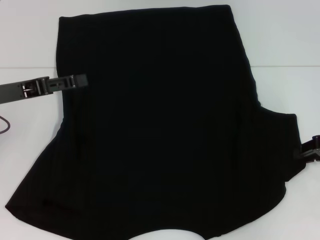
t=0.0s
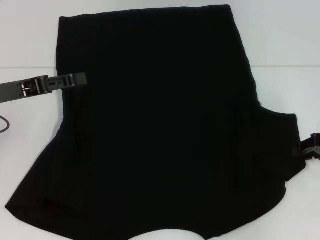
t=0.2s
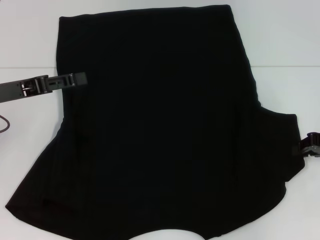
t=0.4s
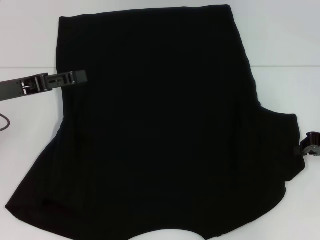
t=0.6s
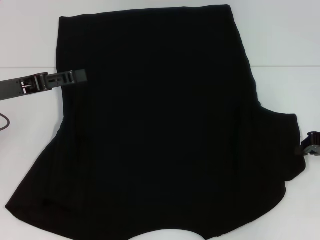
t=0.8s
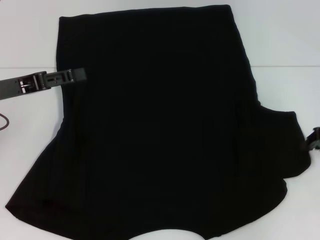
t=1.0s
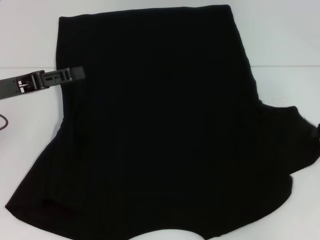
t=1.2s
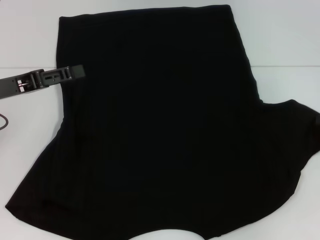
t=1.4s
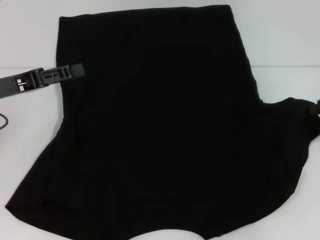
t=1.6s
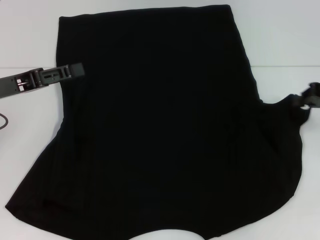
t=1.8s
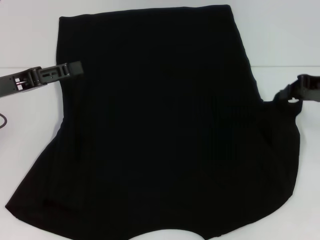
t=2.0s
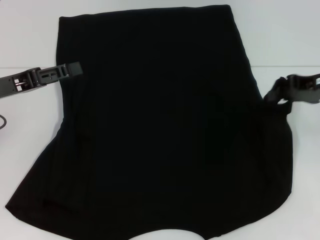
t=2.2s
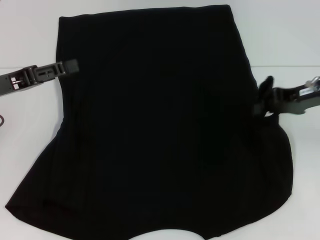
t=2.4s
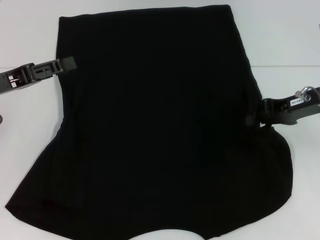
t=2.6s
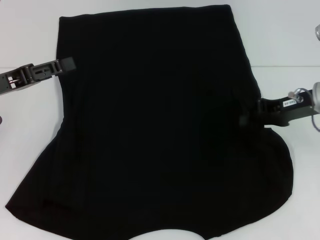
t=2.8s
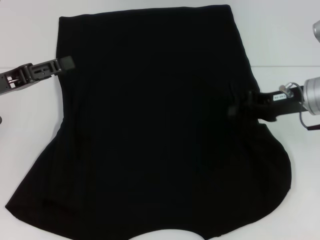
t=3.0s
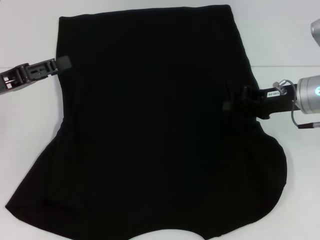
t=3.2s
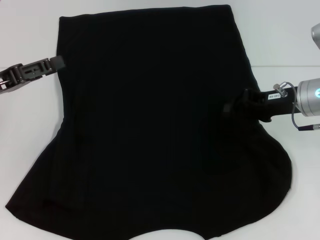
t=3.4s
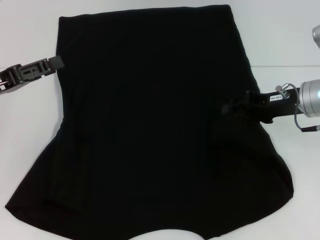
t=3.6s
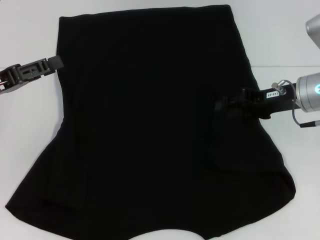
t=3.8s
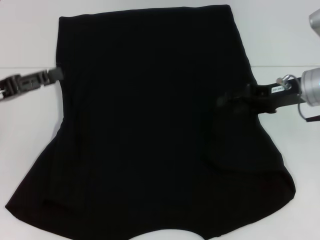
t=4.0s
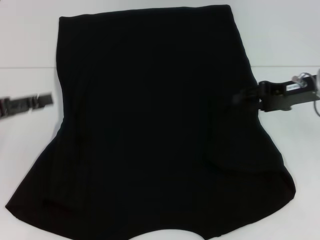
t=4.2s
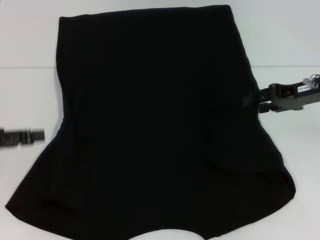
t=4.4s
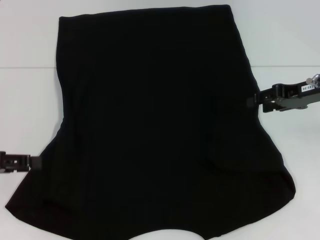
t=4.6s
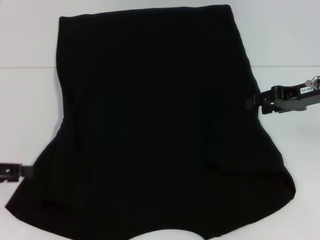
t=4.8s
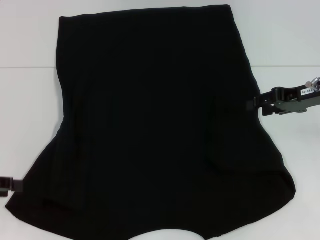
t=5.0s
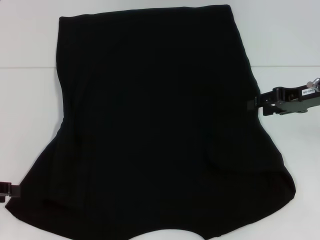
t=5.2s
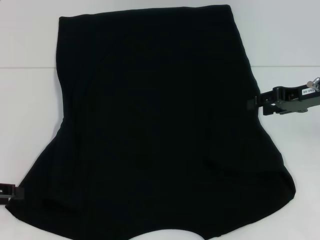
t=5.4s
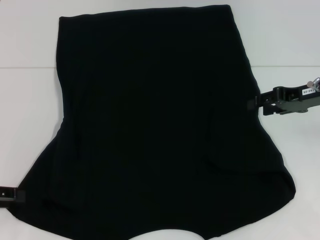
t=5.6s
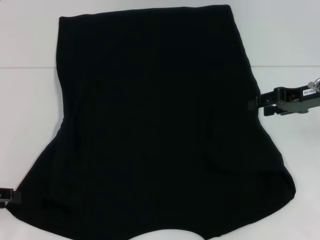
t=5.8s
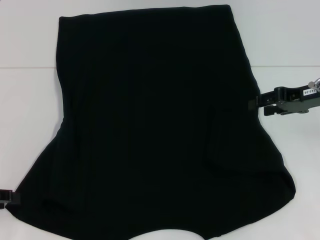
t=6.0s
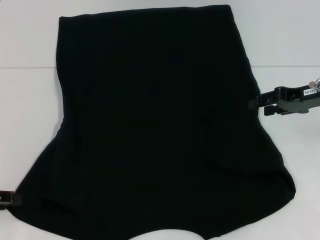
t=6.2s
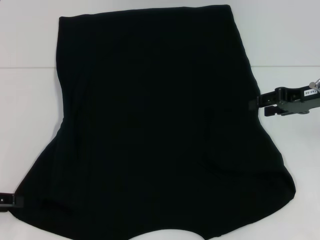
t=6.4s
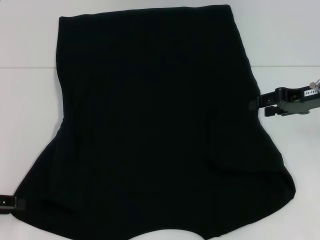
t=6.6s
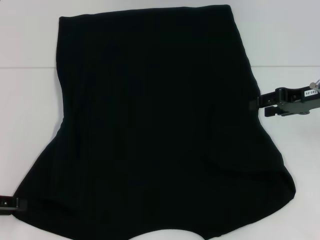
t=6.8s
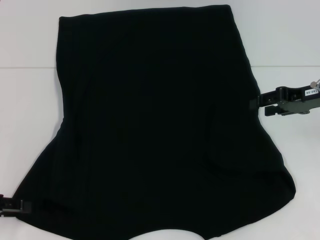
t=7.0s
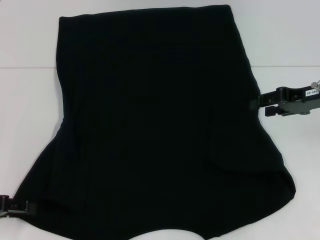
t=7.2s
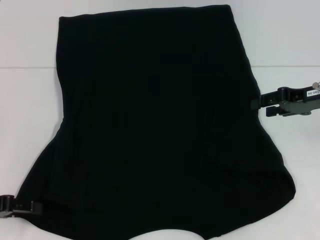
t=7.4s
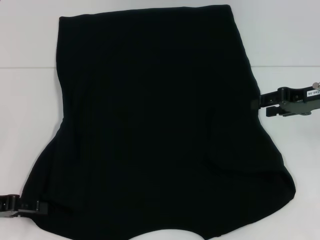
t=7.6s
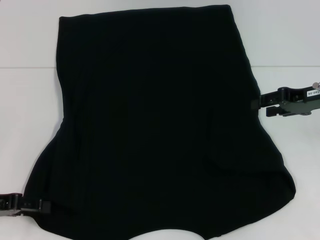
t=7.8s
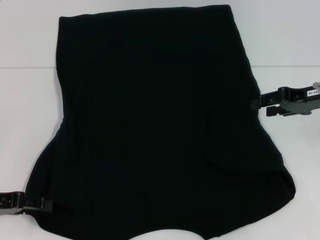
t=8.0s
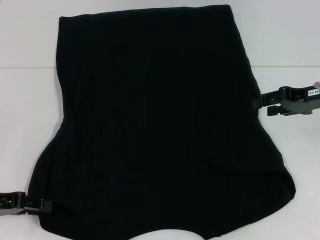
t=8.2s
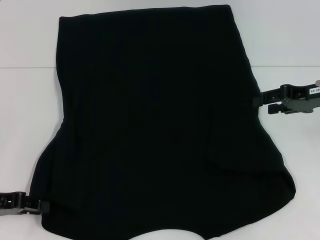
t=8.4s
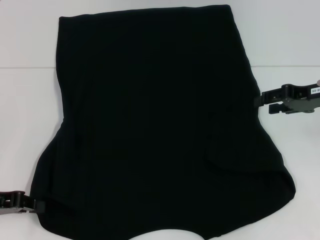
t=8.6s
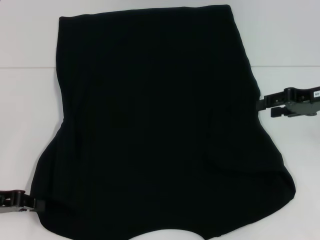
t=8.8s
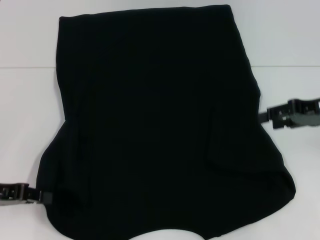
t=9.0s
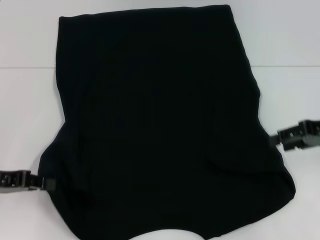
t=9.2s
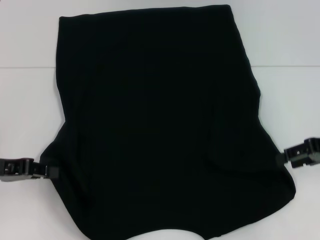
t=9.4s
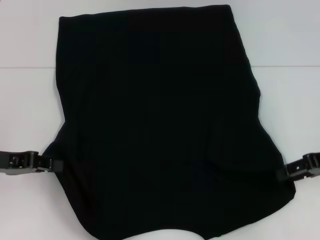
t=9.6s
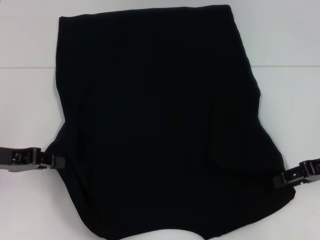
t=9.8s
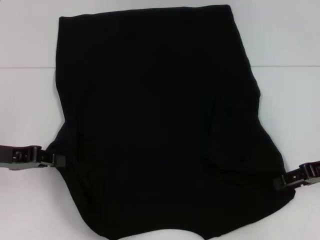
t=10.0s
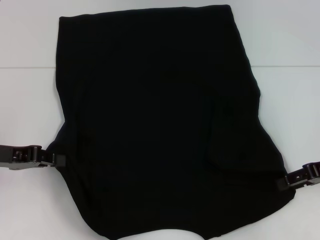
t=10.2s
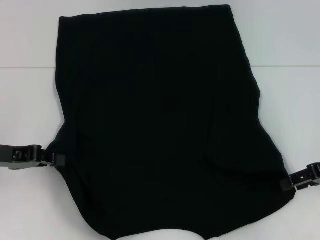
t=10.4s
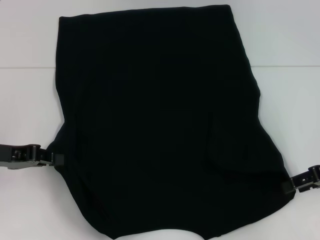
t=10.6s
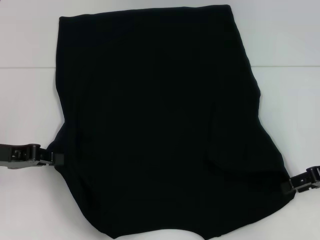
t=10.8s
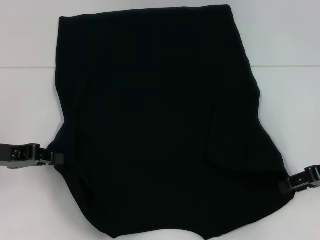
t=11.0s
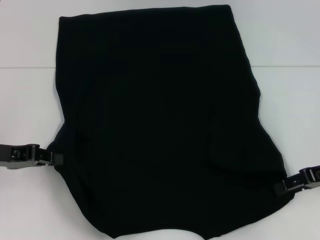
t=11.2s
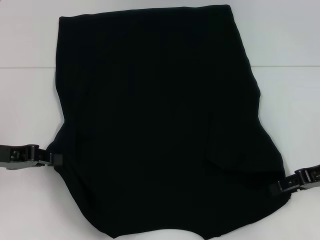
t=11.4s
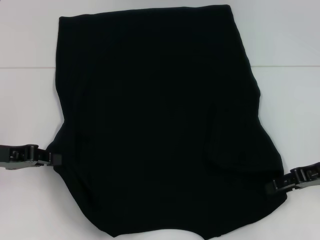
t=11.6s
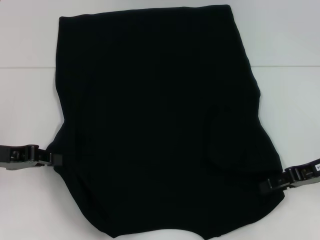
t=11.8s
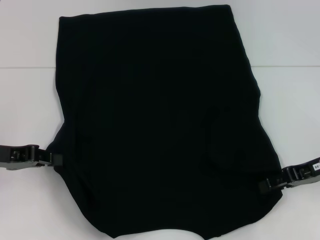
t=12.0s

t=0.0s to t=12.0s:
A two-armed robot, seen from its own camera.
Step, t=0.0s to t=4.0s: Fold the bottom right sleeve with your right hand.
Step, t=4.2s to t=8.8s: Grab the bottom left corner with your left hand.
t=0.0s to t=1.6s: The right gripper shifts by roughly 5 cm.
t=1.6s to t=3.0s: The right gripper goes some 10 cm to the left.
t=3.0s to t=4.4s: The left gripper ends up roughly 5 cm from where it was. The right gripper opens its fingers.
t=4.4s to t=6.0s: The left gripper travels downward by some 5 cm.
t=6.0s to t=7.6s: The grippers stay close to where they were, moving slightly.
t=7.6s to t=9.0s: The left gripper closes its fingers.
t=9.0s to t=10.4s: The right gripper ends up approximately 5 cm from where it was.
t=10.4s to t=12.0s: The grippers stay close to where they were, moving slightly.

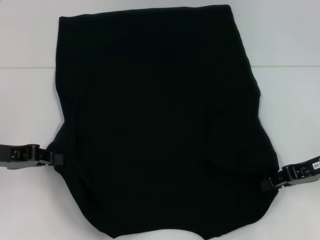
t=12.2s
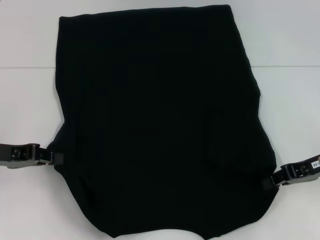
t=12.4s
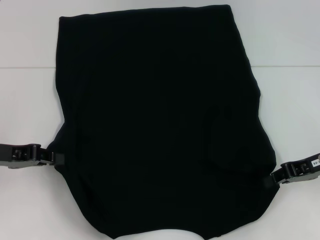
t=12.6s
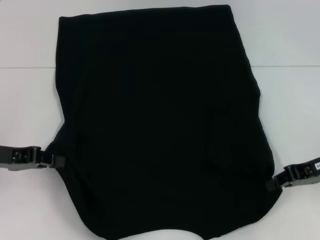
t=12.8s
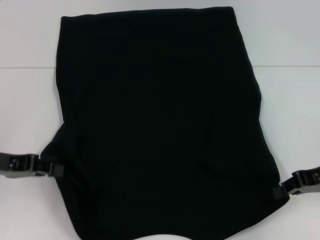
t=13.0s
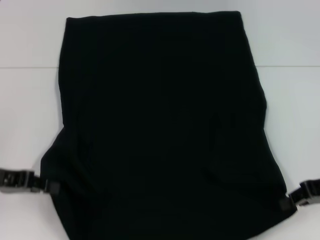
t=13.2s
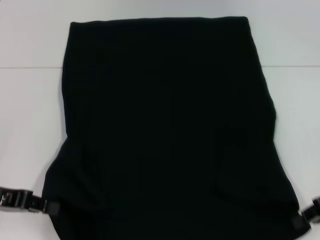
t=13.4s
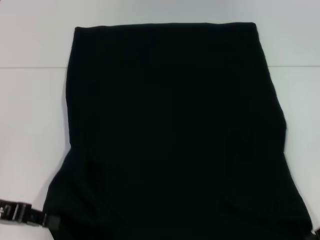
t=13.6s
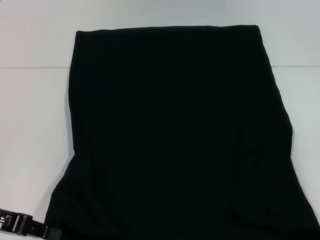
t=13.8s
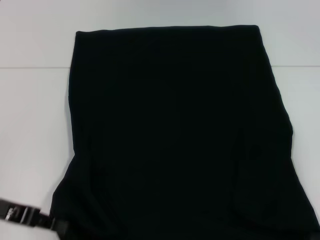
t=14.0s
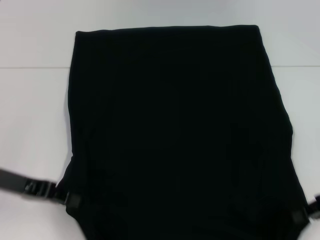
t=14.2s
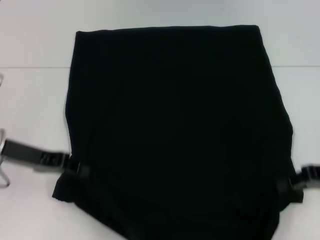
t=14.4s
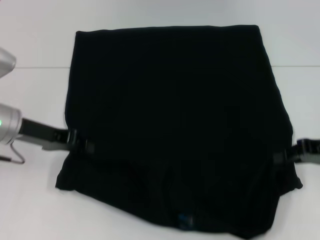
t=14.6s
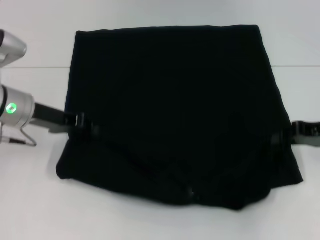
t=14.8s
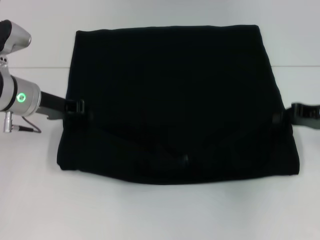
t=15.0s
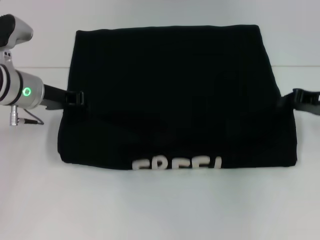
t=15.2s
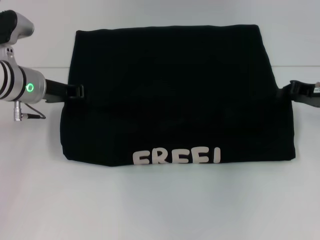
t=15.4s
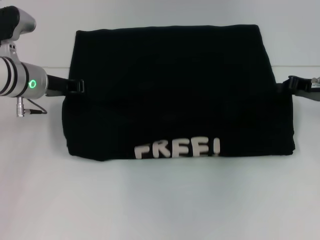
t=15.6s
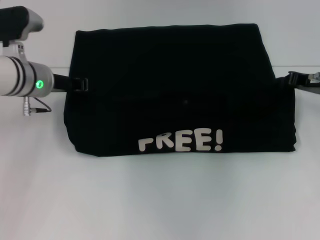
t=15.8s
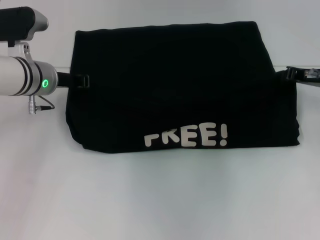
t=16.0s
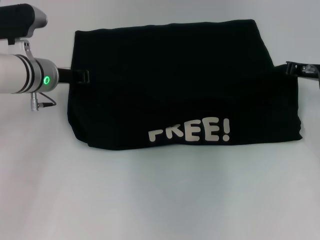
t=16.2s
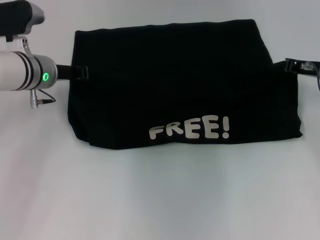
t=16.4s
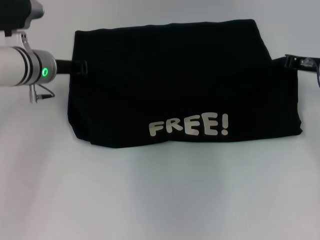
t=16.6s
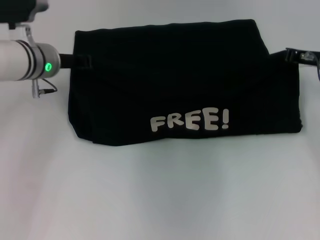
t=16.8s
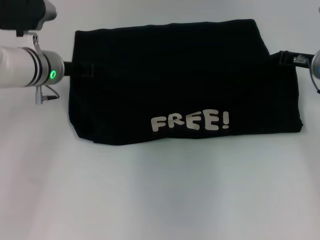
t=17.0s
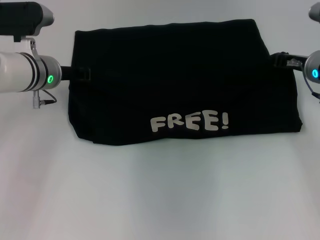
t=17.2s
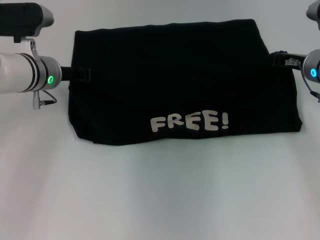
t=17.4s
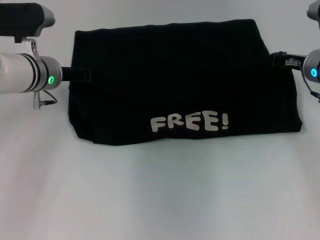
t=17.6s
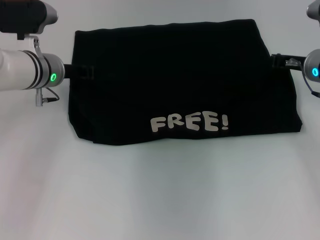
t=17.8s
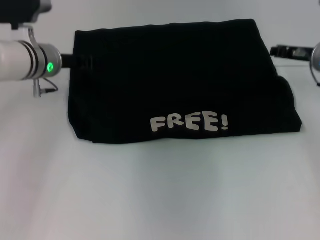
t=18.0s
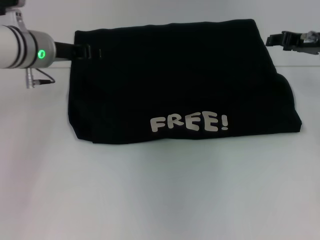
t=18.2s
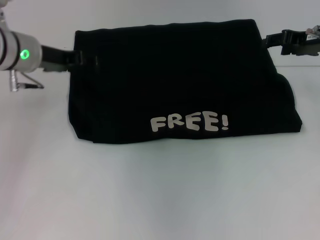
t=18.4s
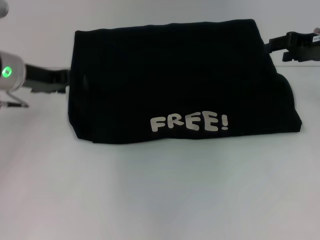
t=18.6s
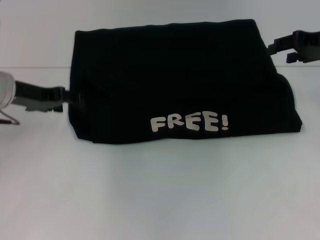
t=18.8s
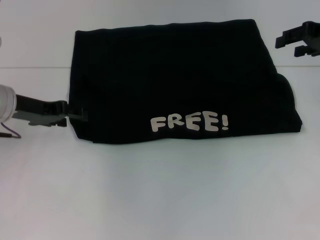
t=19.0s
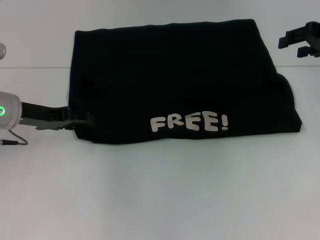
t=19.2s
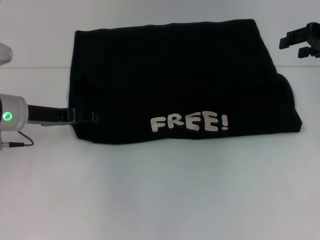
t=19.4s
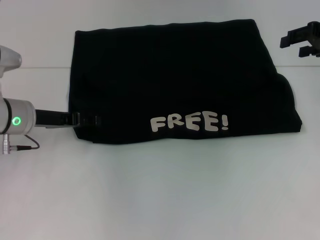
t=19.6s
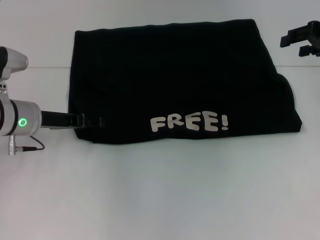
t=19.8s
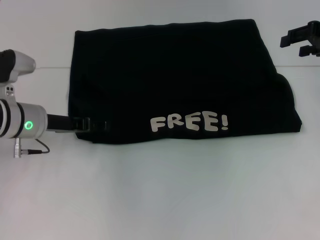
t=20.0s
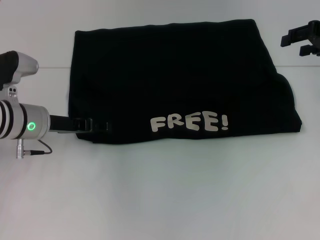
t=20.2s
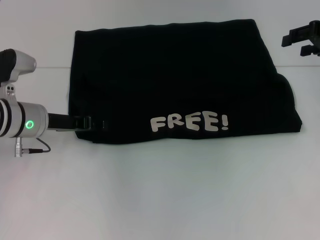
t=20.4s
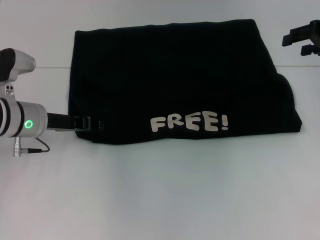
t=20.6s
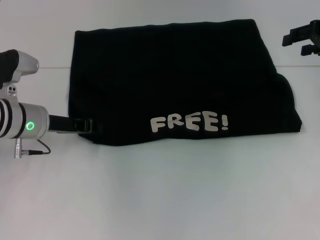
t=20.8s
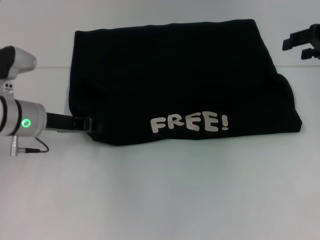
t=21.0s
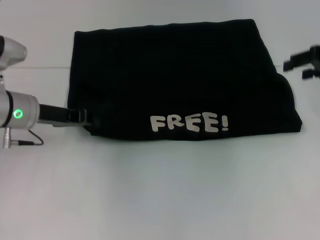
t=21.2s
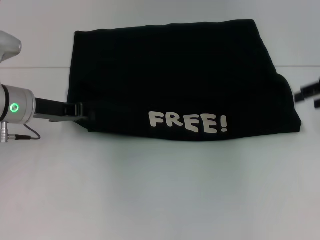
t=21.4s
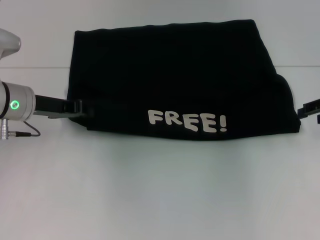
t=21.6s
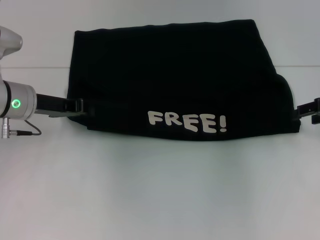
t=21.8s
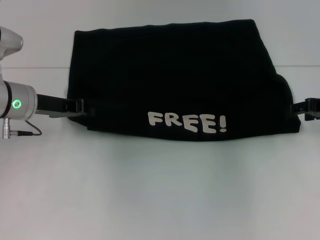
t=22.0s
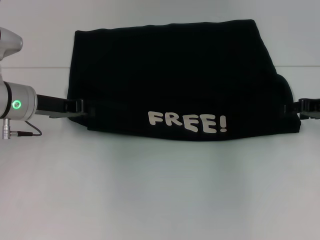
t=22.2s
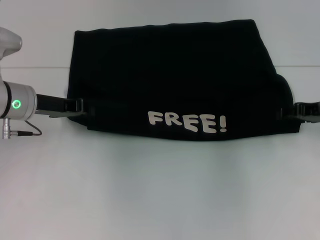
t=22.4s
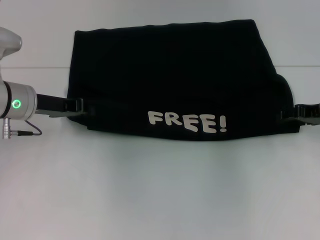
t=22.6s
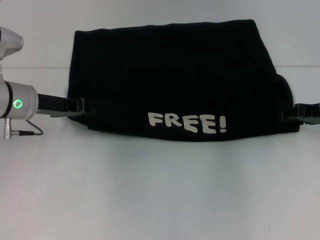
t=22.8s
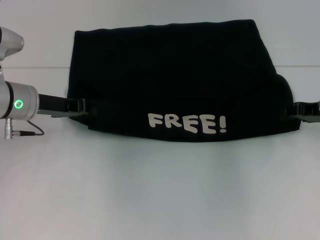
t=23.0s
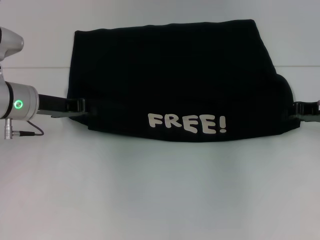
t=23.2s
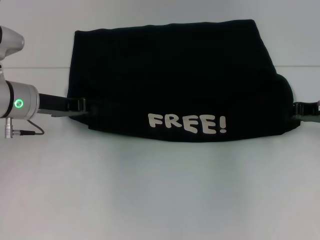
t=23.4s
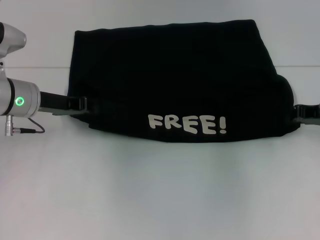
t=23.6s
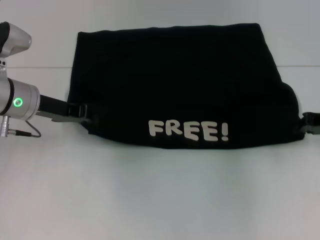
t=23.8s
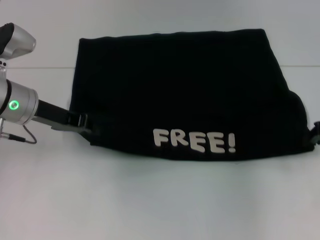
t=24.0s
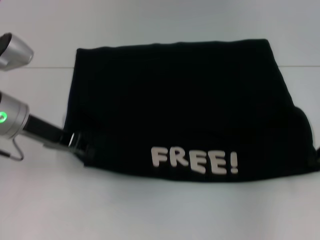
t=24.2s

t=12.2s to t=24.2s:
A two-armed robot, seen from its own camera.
Step, t=13.0s to t=17.8s: Fold the clothes with your left hand.
Step, t=13.0s to t=17.8s: Fold the clothes with your right hand.
t=12.2s to t=13.8s: The two grippers go about 5 cm backward. The right gripper closes.
t=13.8s to t=15.2s: The left gripper moves forward and to the right, about 20 cm. The right gripper moves forward, about 15 cm.
t=15.2s to t=16.6s: The right gripper shifts some 5 cm forward.
t=16.6s to t=18.2s: The right gripper opens its fingers. Meanwhile the left gripper opens its fingers.
t=18.2s to t=19.8s: The left gripper is displaced downward and backward by some 10 cm; the right gripper moves upward, about 5 cm.
t=19.8s to t=21.2s: The left gripper closes its fingers.
t=21.2s to t=22.6s: The right gripper moves downward, some 10 cm.
t=22.6s to t=24.2s: The right gripper goes approximately 5 cm backward, and closes its fingers.
